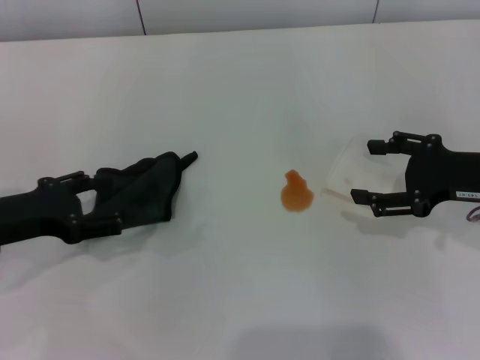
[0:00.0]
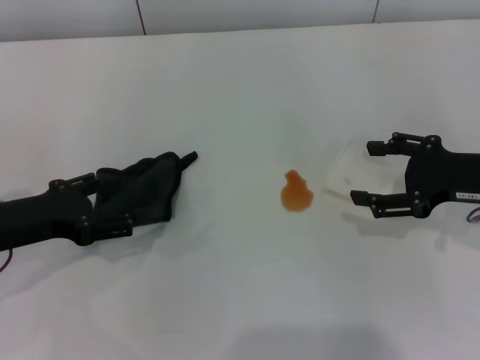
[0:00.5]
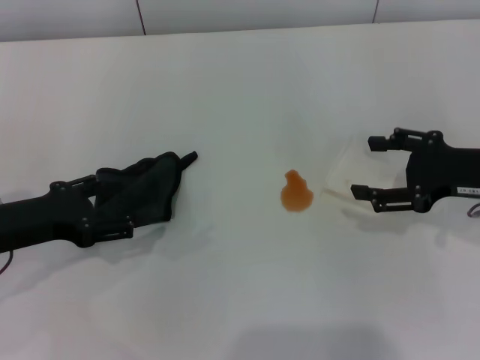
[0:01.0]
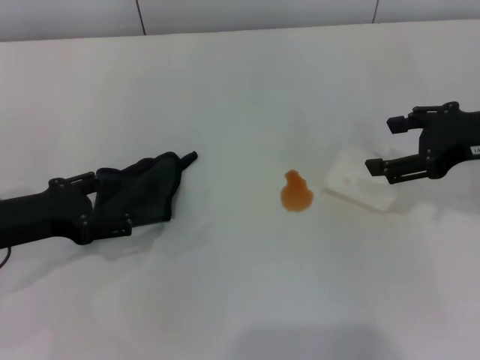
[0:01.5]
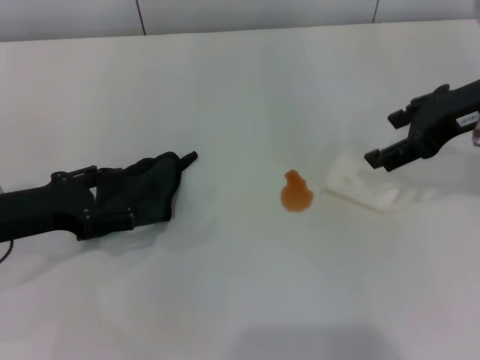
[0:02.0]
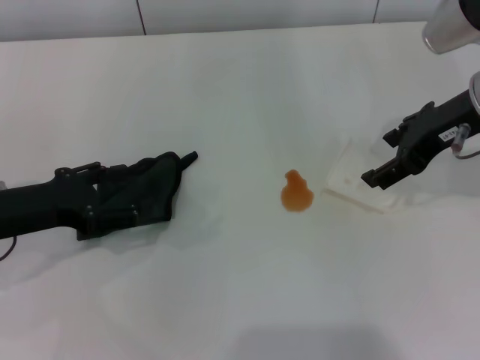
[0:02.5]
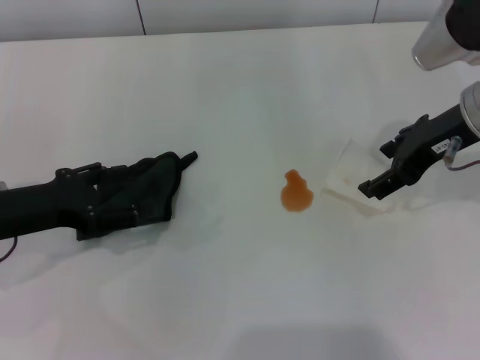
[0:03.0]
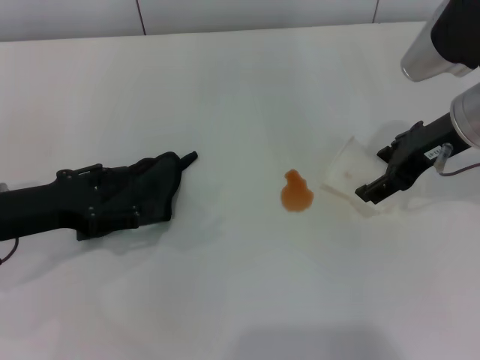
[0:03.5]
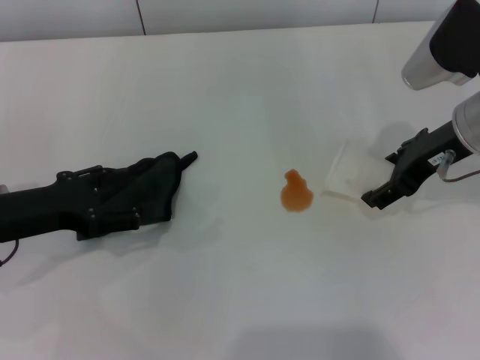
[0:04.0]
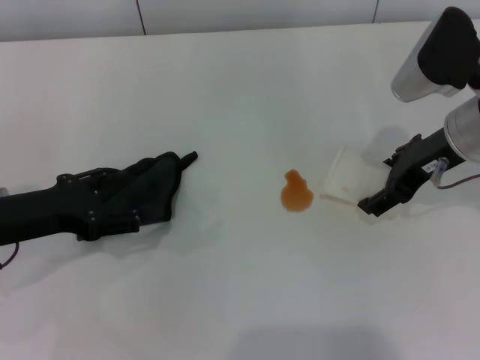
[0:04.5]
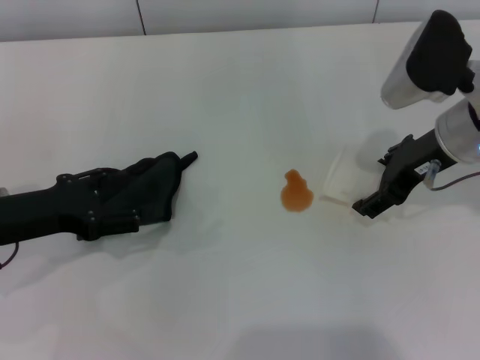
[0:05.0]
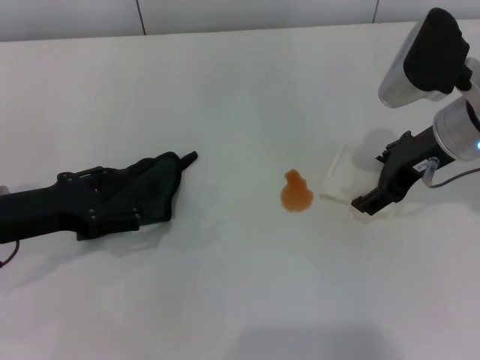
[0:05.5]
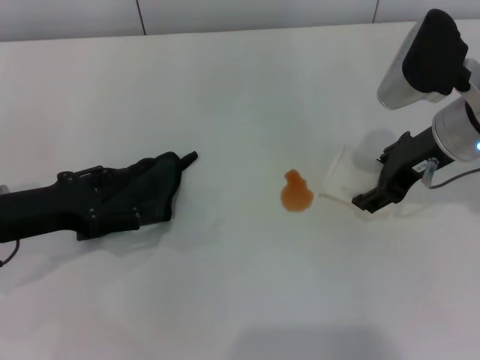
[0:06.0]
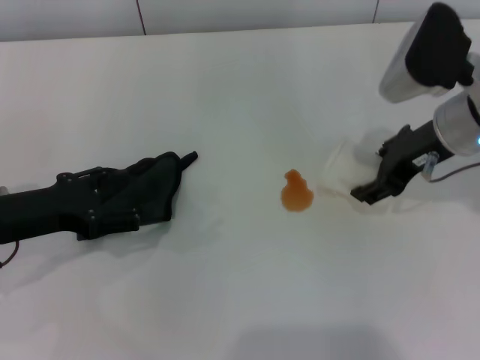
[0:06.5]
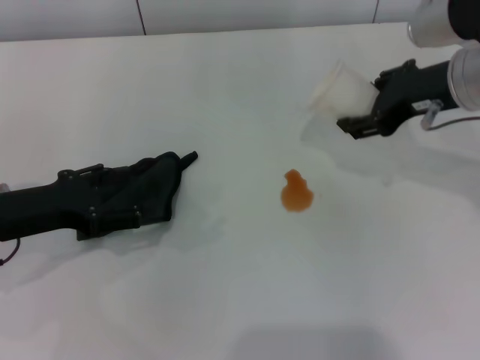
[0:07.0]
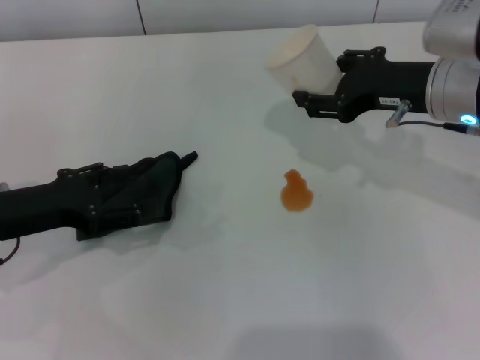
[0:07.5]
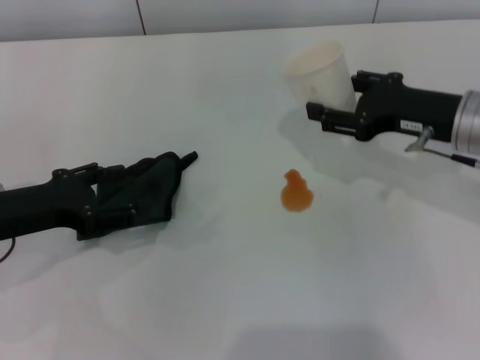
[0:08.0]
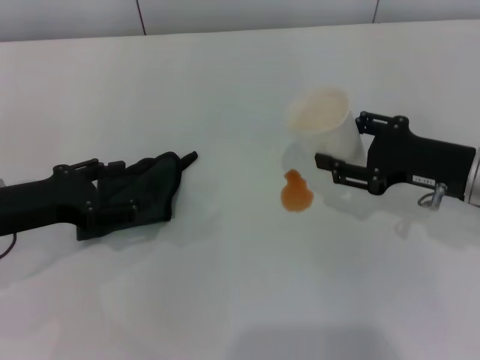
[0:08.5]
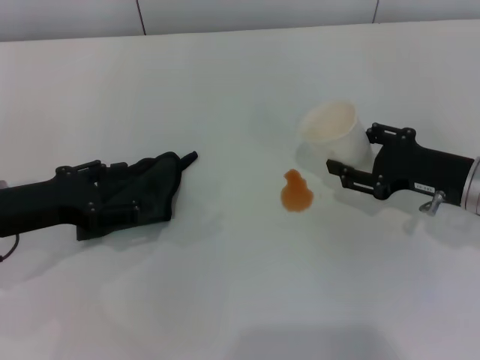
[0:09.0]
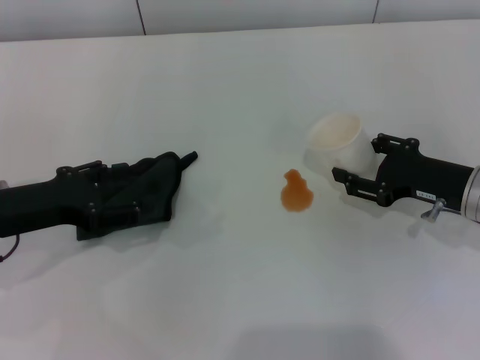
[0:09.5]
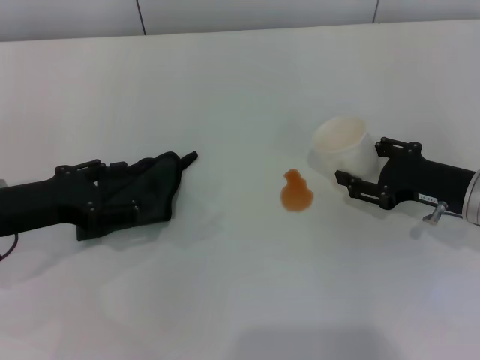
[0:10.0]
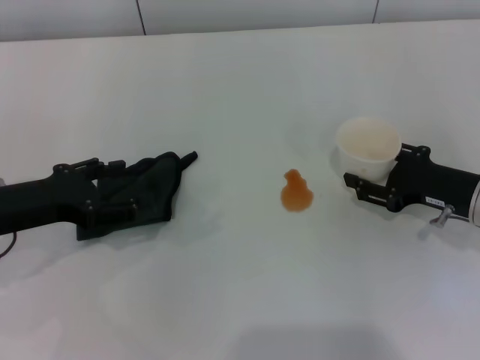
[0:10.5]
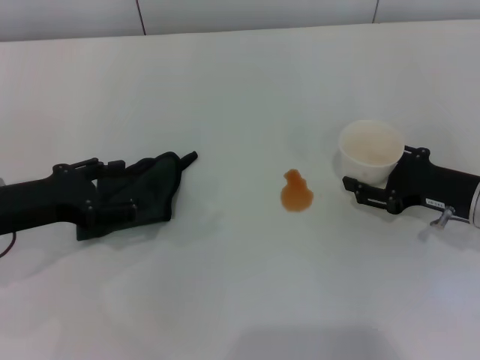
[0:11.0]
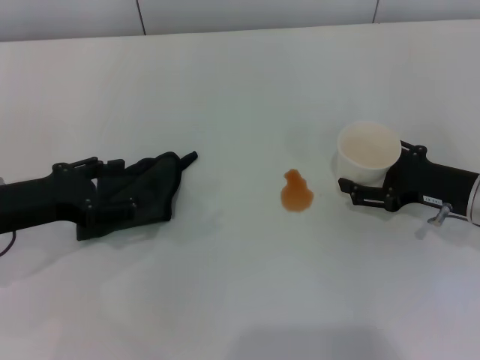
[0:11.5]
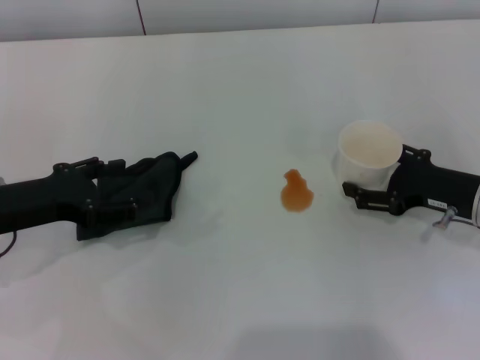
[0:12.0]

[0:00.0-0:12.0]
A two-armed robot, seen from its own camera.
Step, 0:00.0 to 0:06.0: Grasp the paper cup with the right gripper.
0:00.0 to 0:02.0: The right gripper travels upward by approximately 10 cm.
0:02.0 to 0:04.0: The right gripper is displaced downward by approximately 5 cm.
0:04.0 to 0:06.0: The right gripper closes up.
0:08.0 to 0:10.0: The right gripper heads downward, covering about 10 cm.
0:10.0 to 0:12.0: The right gripper opens its fingers.

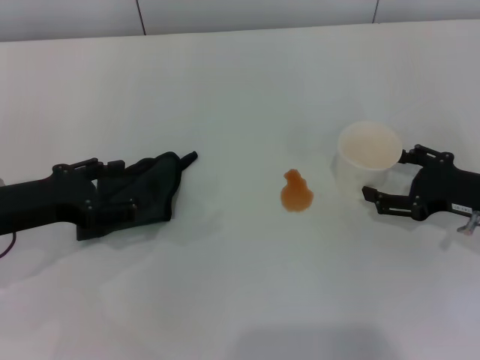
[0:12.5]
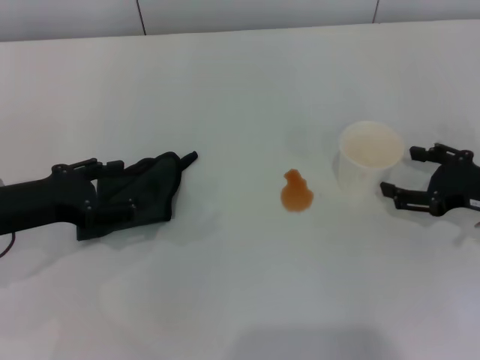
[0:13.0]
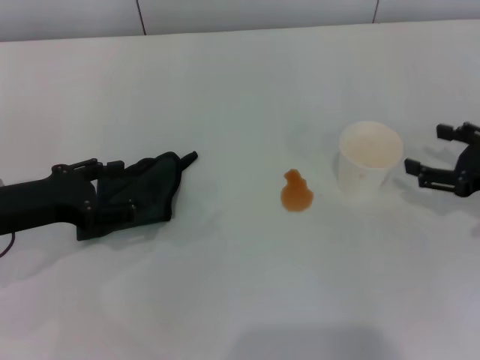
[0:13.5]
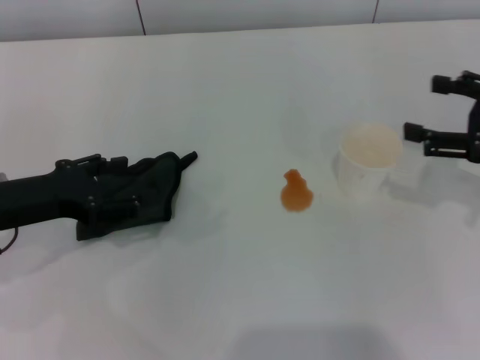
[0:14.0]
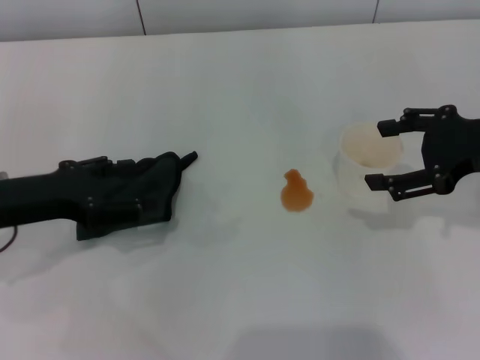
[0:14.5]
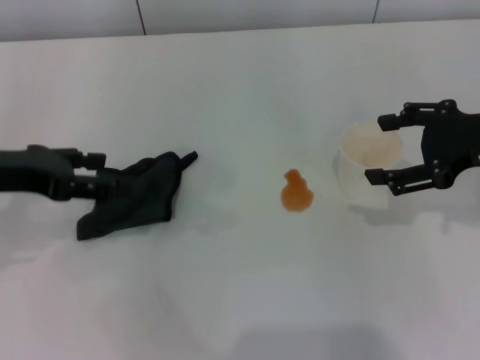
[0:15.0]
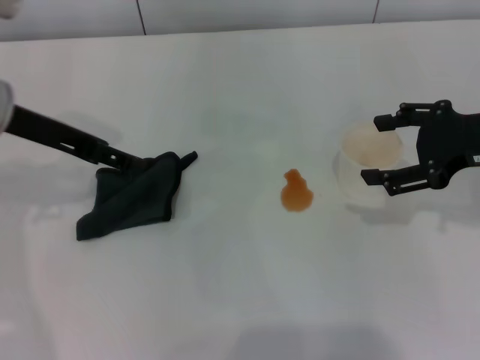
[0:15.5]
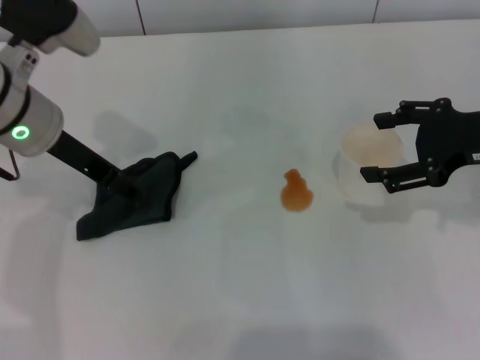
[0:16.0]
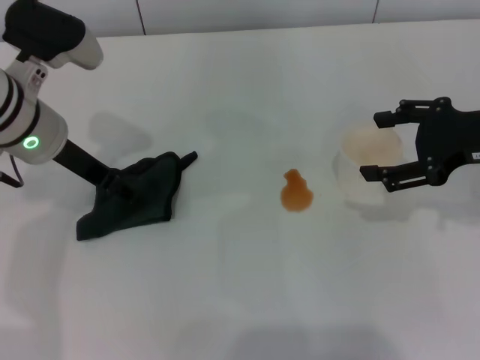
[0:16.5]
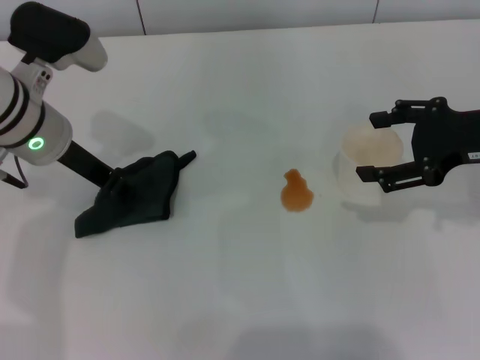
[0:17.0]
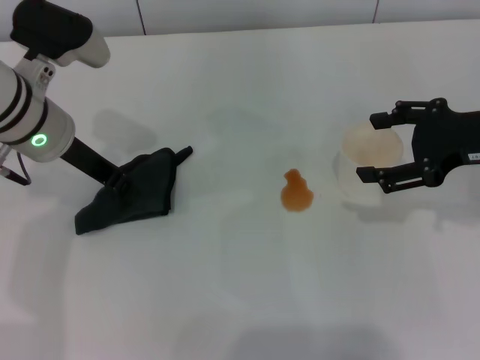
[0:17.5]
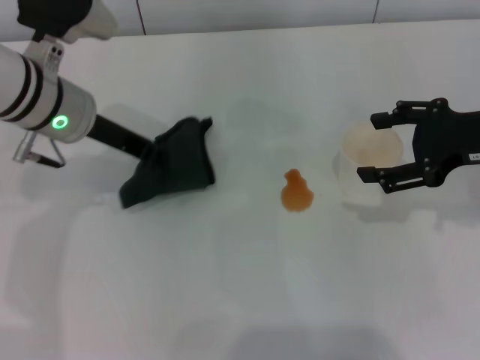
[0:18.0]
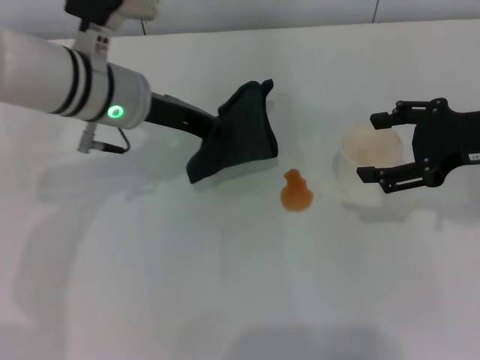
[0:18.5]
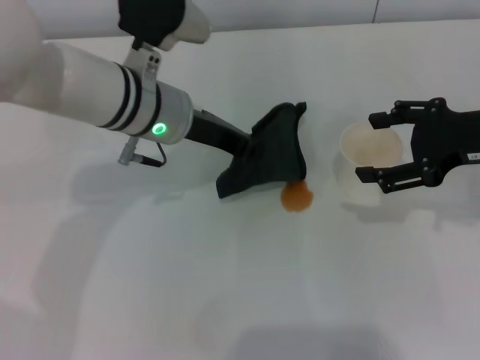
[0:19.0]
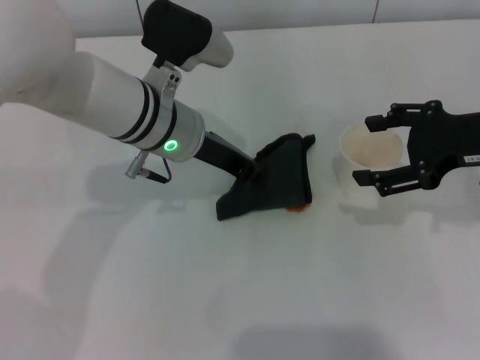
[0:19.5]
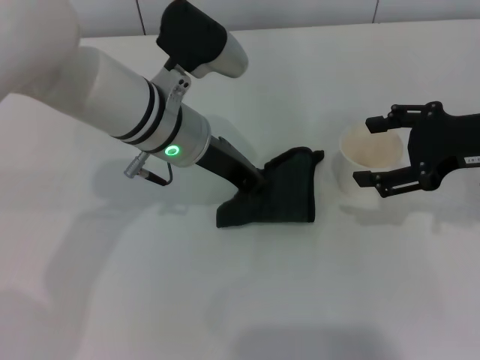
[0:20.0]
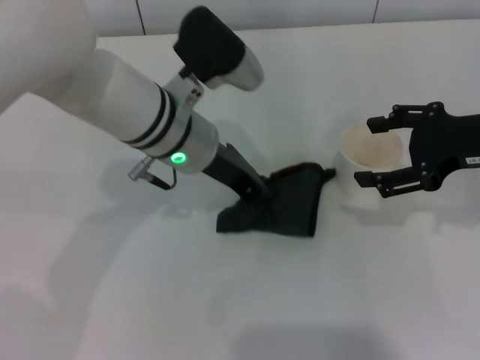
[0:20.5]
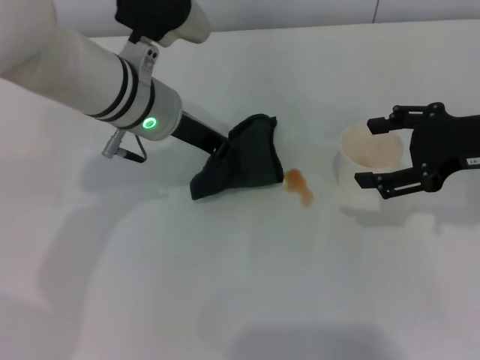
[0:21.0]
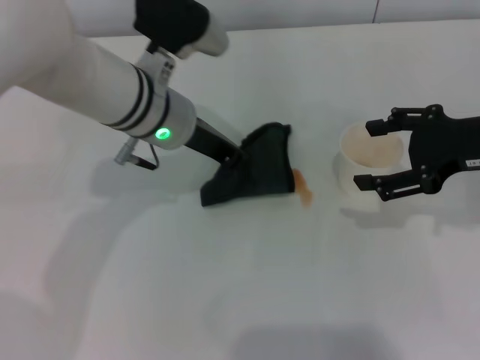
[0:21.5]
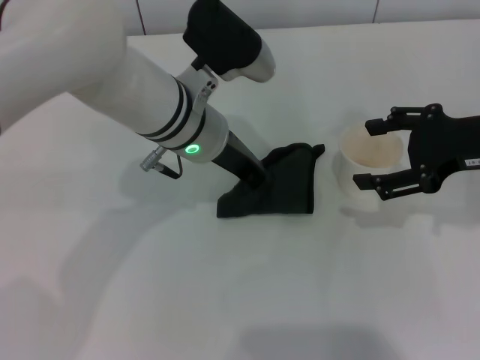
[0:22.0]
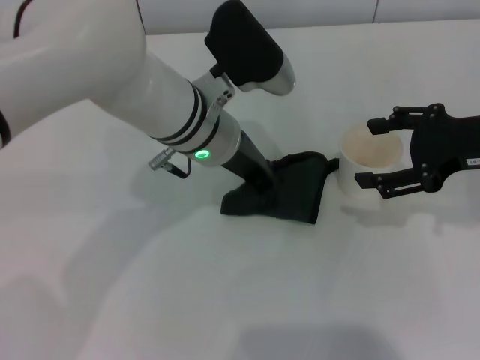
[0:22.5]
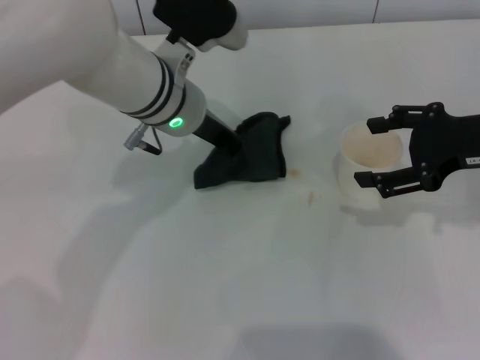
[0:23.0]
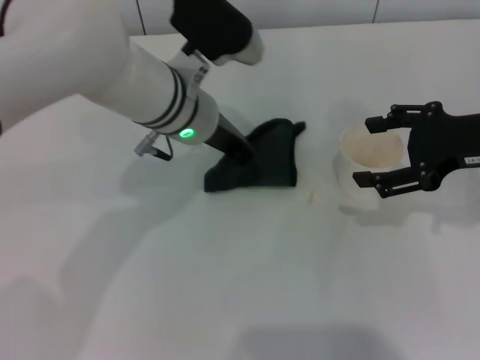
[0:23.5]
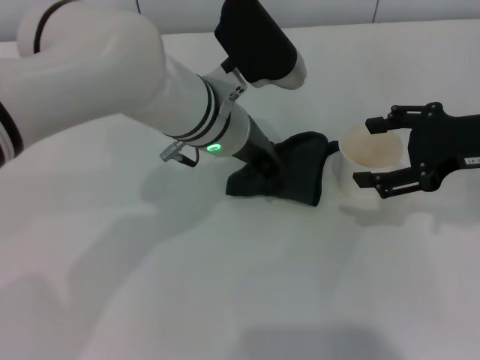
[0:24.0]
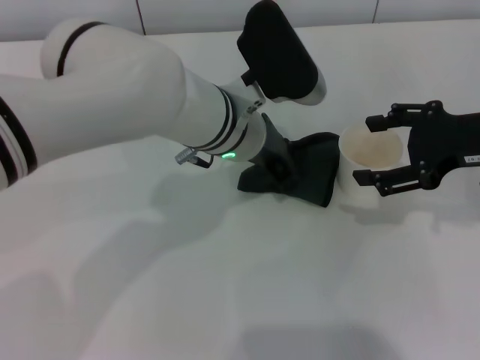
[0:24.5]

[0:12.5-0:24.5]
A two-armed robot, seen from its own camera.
Step, 0:13.0 to 0:17.0: Grasp the rag with the left gripper.
0:12.5 to 0:14.5: The right gripper is displaced upward by some 10 cm.
0:14.5 to 0:16.5: The left gripper shifts roughly 10 cm forward and to the right.
0:16.5 to 0:18.5: The left gripper moves to the right, roughly 5 cm, and closes its fingers.
0:18.5 to 0:20.5: The left gripper shifts approximately 5 cm to the right.
0:20.5 to 0:22.5: There are only small adjustments of the grippers.
0:22.5 to 0:24.5: The grippers stay close to where they were, moving slightly.

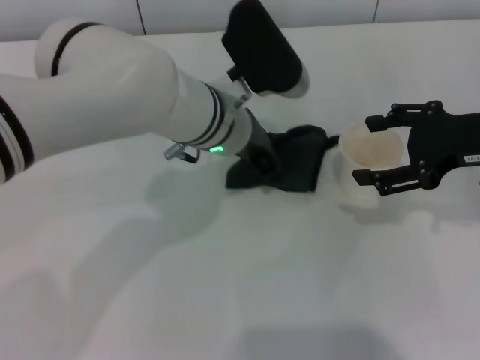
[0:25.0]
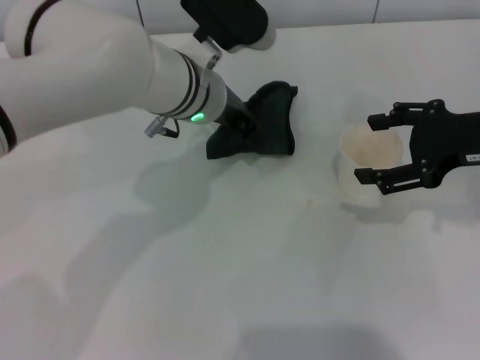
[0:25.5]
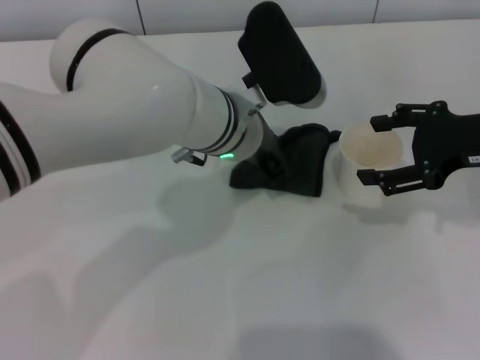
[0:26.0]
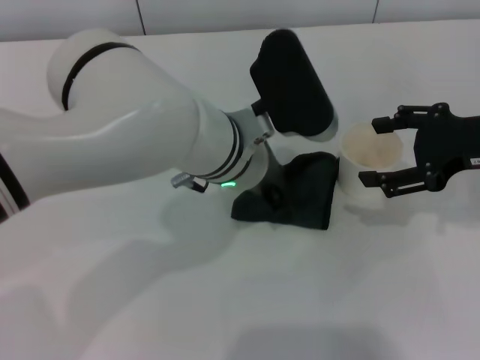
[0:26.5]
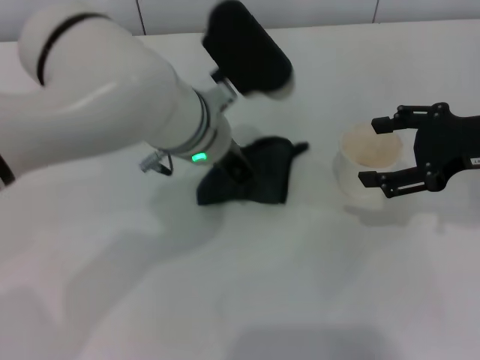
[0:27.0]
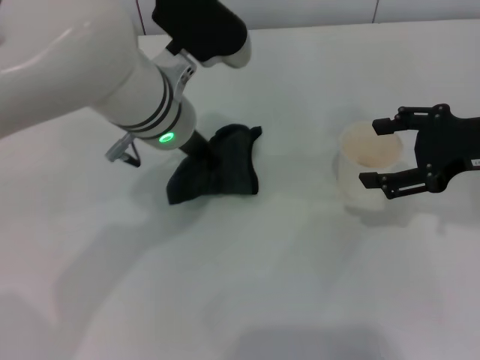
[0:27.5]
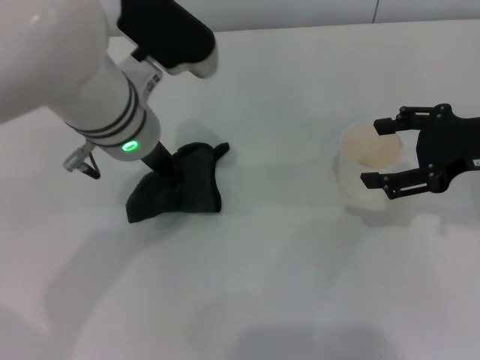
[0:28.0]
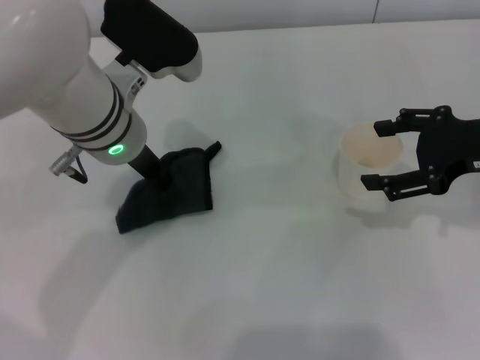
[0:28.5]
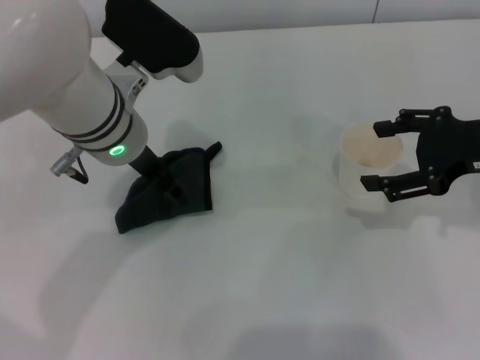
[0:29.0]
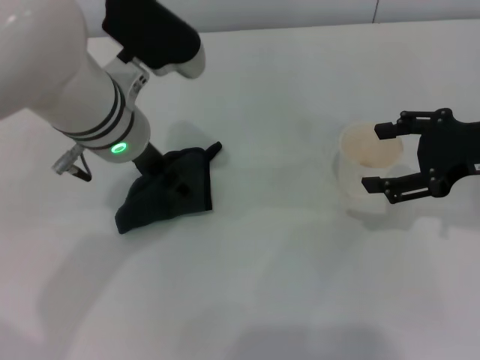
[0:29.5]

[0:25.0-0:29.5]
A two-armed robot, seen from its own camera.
Step, 0:25.0 to 0:28.5: Wipe the stains off the table with the left gripper.
0:25.0 to 0:27.0: There are only small adjustments of the grippers.
0:27.0 to 0:29.5: The left gripper travels to the left by roughly 5 cm, and opens.
